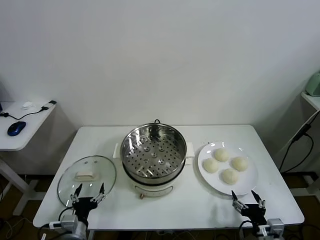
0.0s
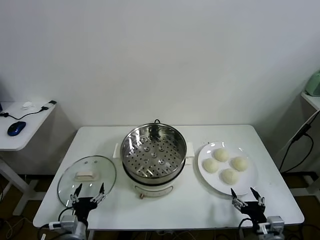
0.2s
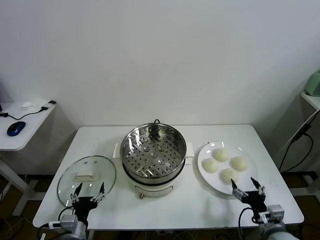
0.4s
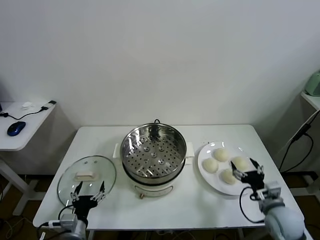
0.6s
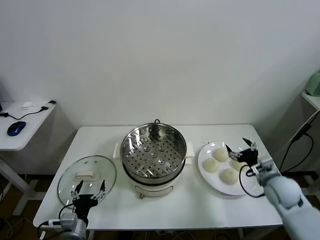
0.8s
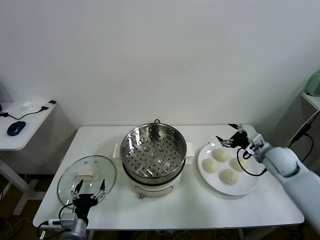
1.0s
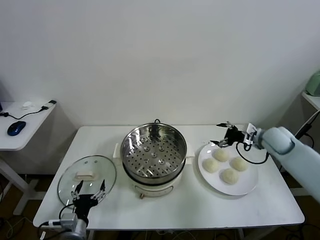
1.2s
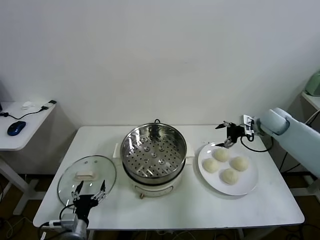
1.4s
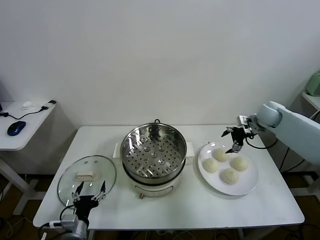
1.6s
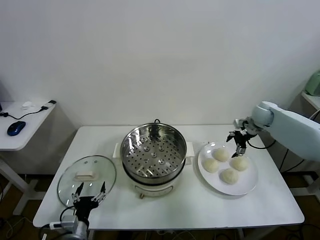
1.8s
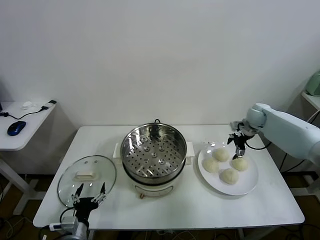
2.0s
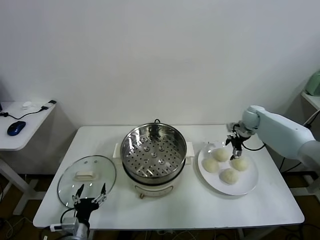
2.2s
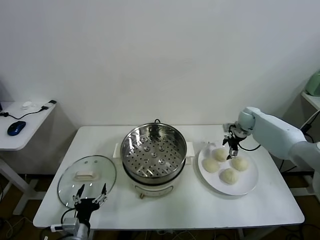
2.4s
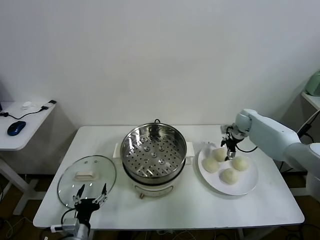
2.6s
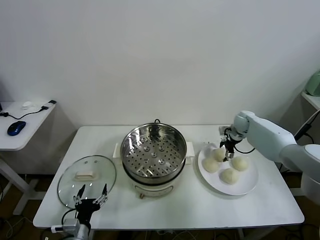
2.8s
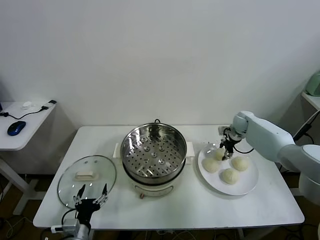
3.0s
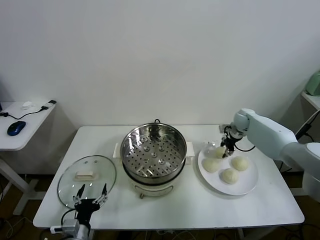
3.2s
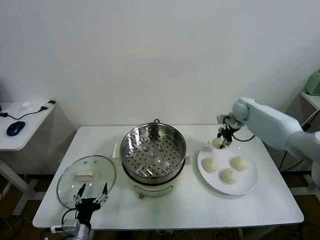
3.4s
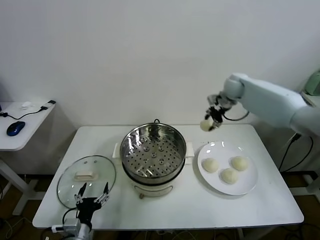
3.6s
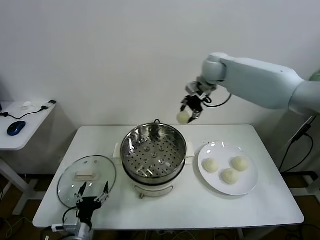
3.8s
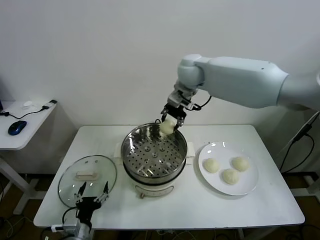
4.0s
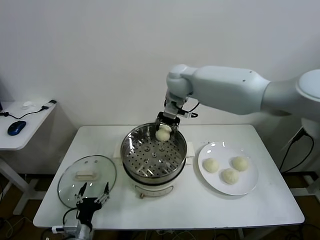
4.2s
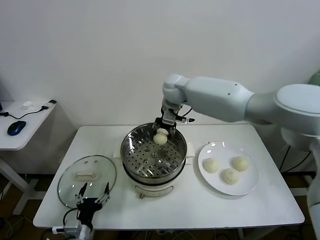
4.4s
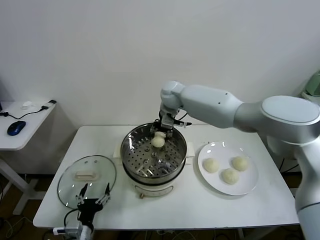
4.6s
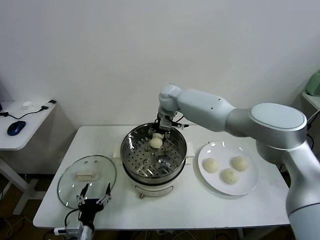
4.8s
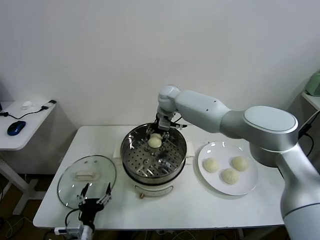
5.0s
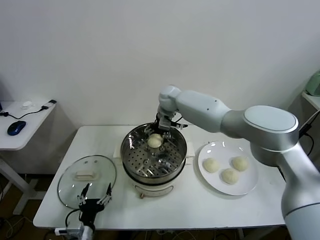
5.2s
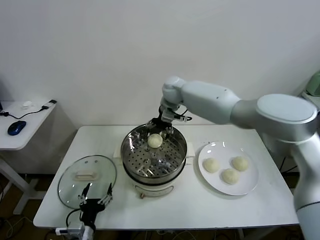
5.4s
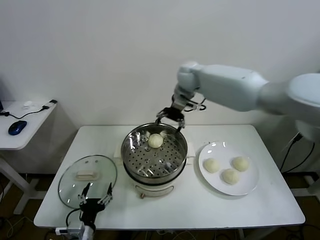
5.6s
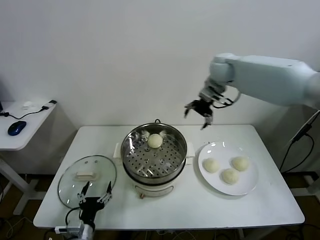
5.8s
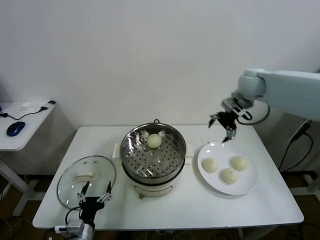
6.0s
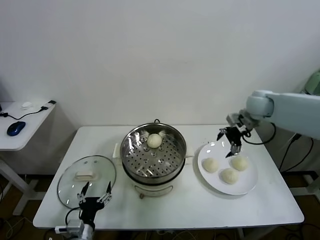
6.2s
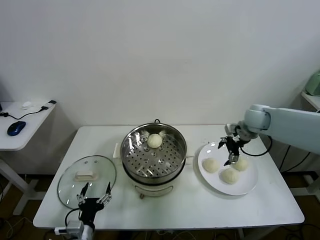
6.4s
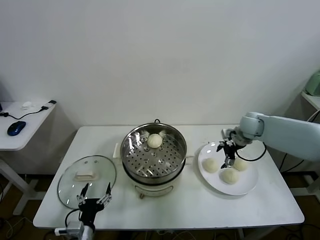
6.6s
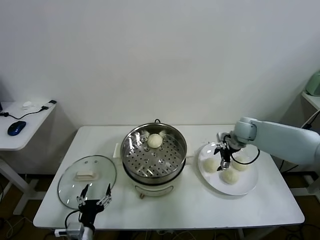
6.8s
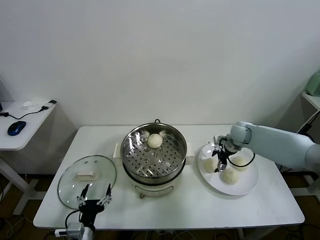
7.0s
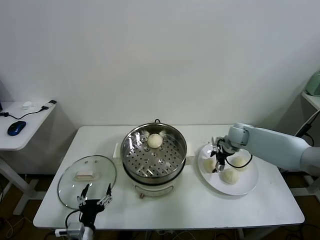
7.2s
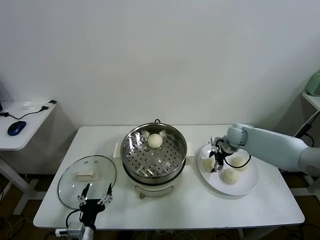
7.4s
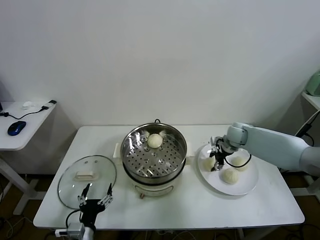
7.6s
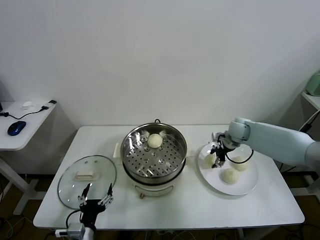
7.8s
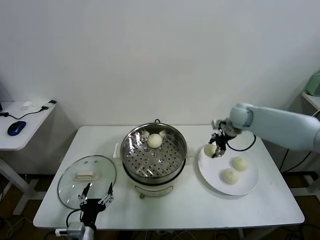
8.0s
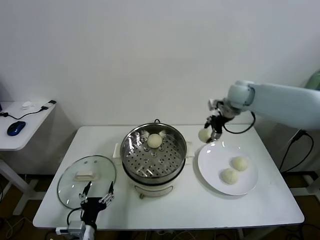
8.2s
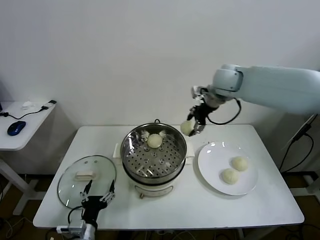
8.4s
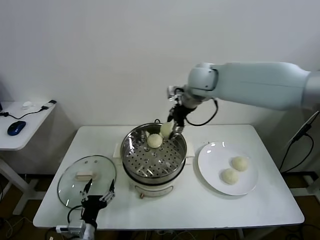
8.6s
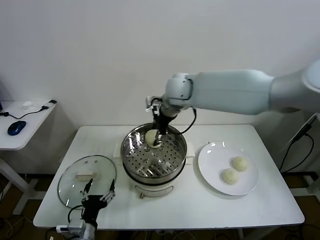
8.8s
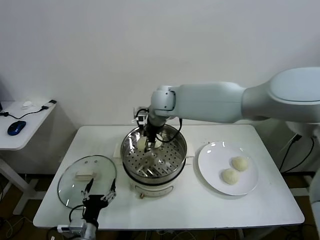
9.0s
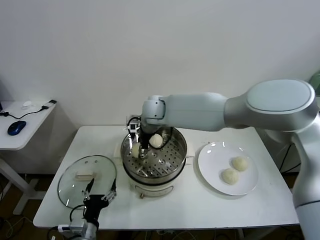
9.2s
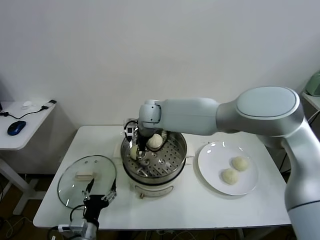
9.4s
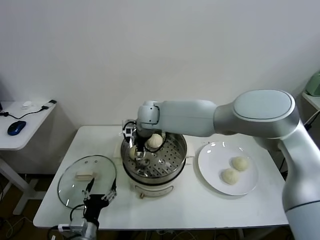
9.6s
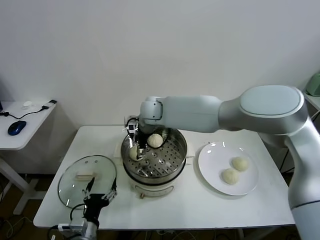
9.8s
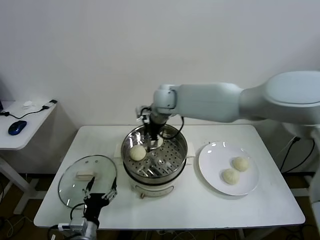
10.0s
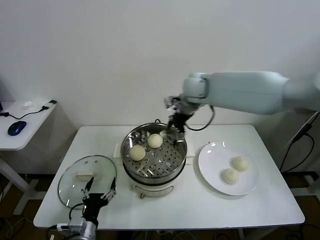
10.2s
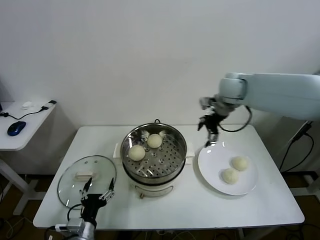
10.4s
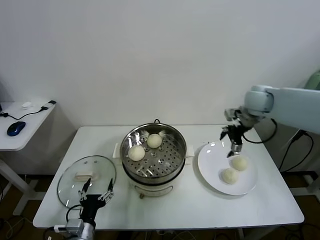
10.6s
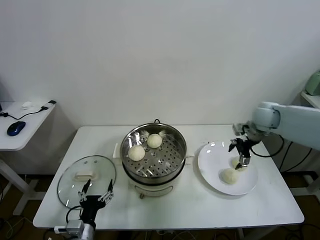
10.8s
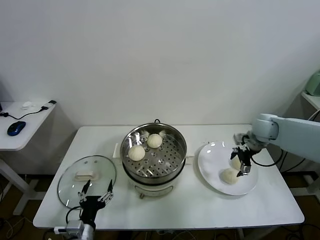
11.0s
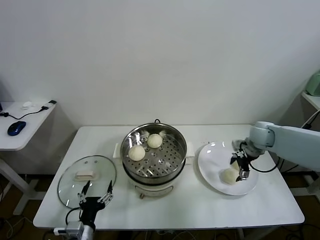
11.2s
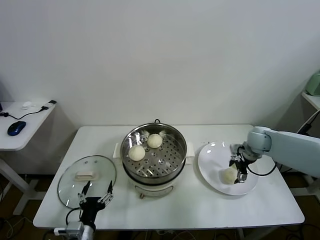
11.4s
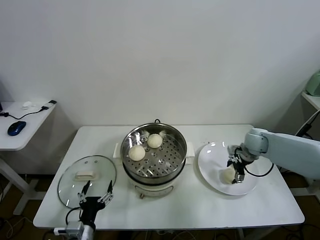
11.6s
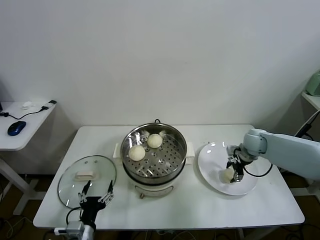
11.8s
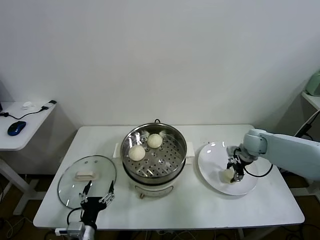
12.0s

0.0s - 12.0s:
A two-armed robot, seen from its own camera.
Task of the whole recording: take steamed baozi put them in steamer.
Step, 0.0s - 3.0s: Grasp the baozi in the plate with right gripper.
Step, 3.2s - 5.2s: Place the baozi on the steamer with right gripper.
Step, 5.4s - 7.4s: Grasp the baozi in the plate with right gripper.
Step, 7.6s - 9.8s: Place the baozi on the steamer with right gripper.
Step, 10.0s - 12.0s: Grasp the baozi in the plate with right gripper.
1.6s - 3.0s: The right gripper is displaced downward by approximately 10 cm, and closes its fingers.
3.0s - 4.4s: The right gripper goes roughly 35 cm to the left and upward.
4.4s - 6.0s: The right gripper heads to the right, covering roughly 30 cm, and opens.
6.0s - 7.6s: The right gripper heads downward, covering some 20 cm, and closes.
7.6s - 9.0s: The right gripper heads to the left and upward, covering roughly 35 cm.
9.0s - 10.4s: The right gripper travels to the right by about 25 cm, and opens its fingers.
10.4s - 12.0s: The right gripper travels downward and to the right by about 20 cm, and closes.

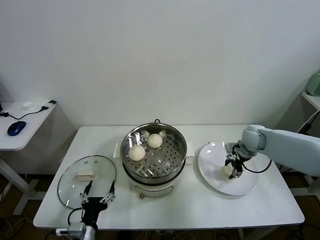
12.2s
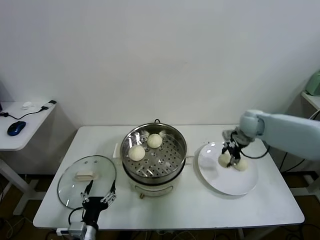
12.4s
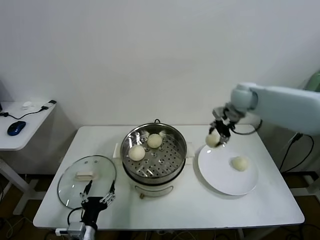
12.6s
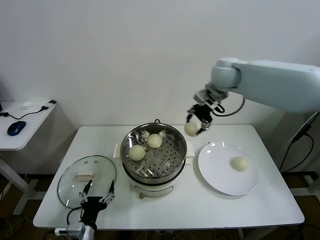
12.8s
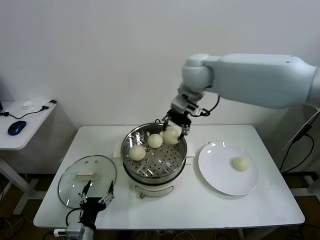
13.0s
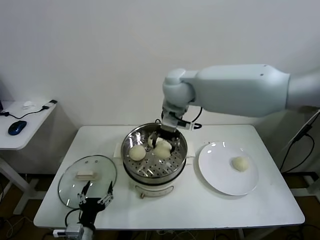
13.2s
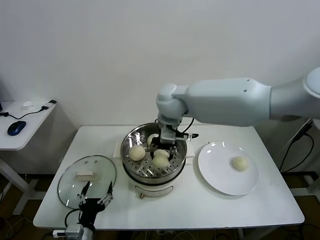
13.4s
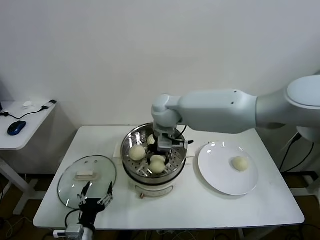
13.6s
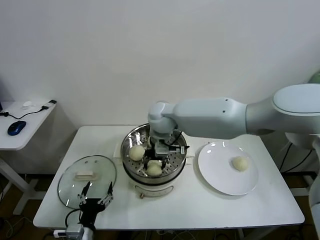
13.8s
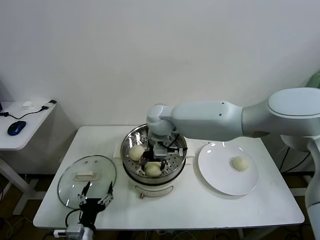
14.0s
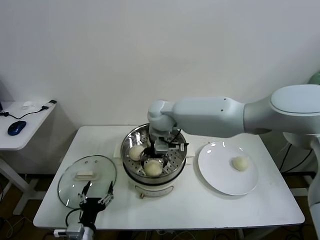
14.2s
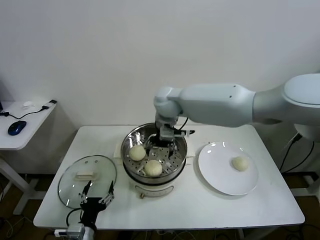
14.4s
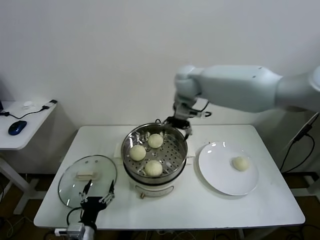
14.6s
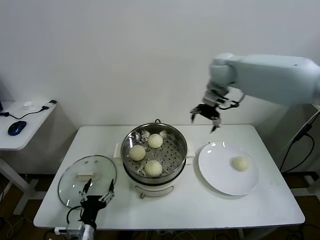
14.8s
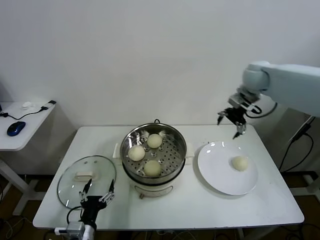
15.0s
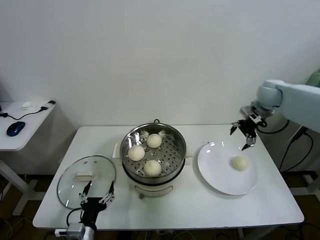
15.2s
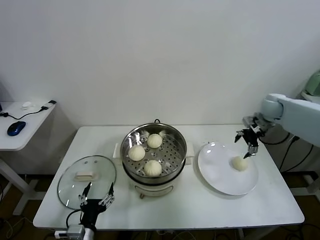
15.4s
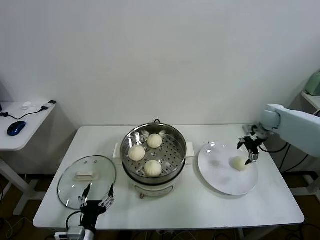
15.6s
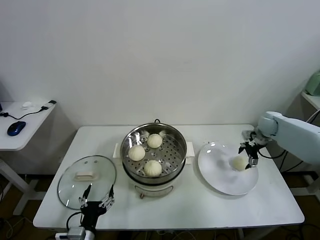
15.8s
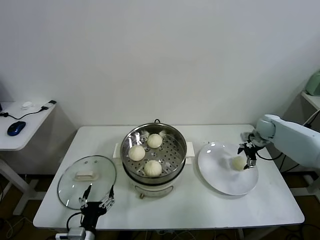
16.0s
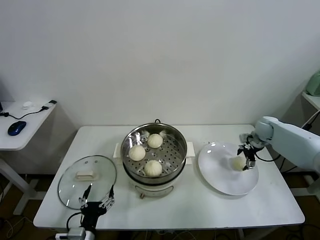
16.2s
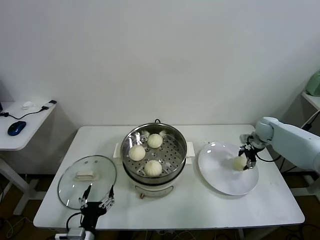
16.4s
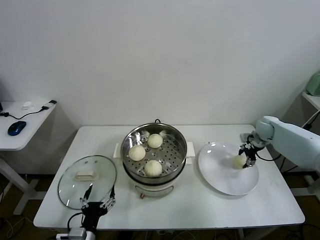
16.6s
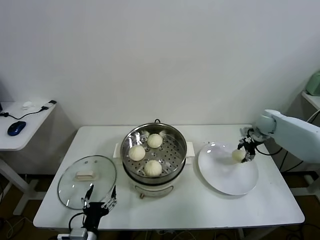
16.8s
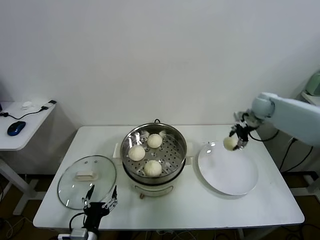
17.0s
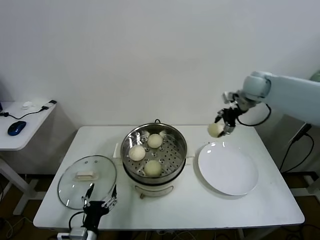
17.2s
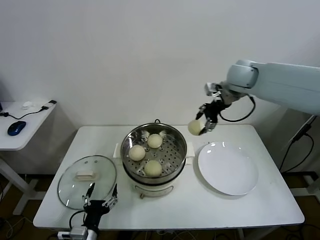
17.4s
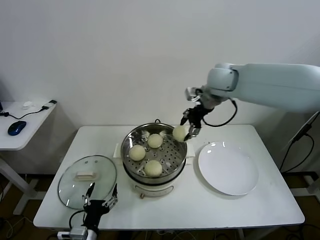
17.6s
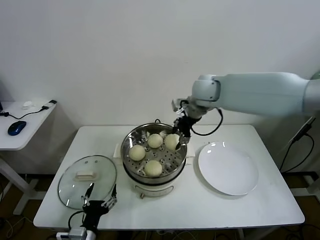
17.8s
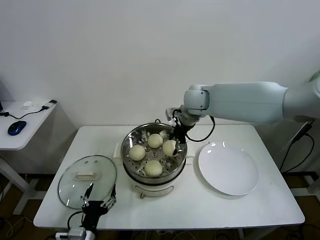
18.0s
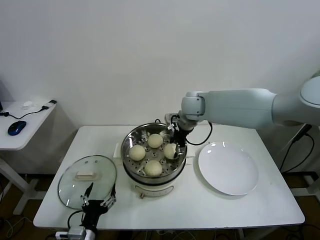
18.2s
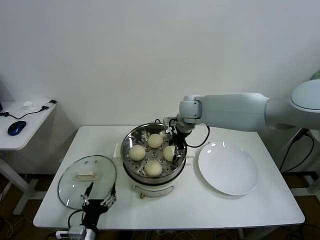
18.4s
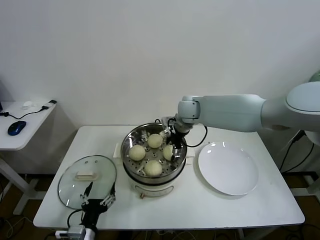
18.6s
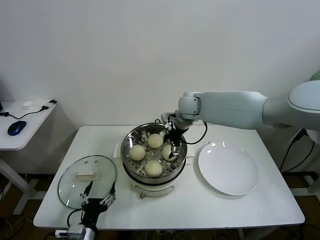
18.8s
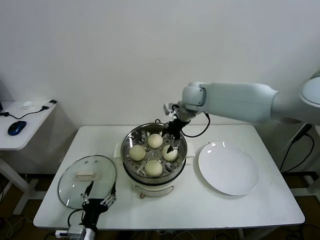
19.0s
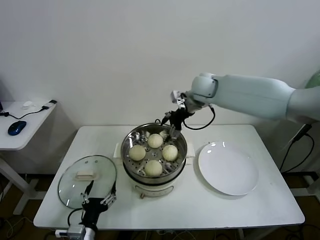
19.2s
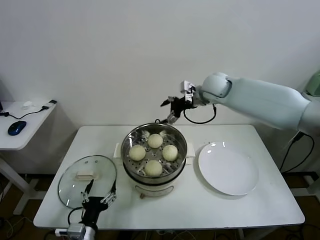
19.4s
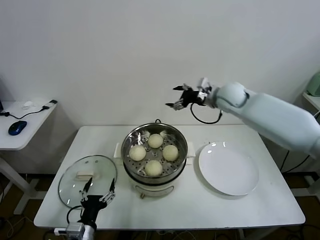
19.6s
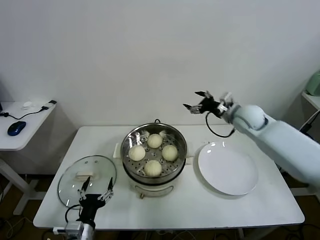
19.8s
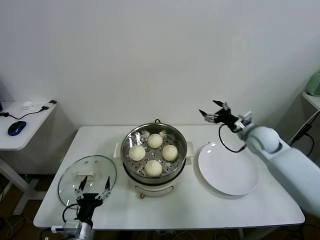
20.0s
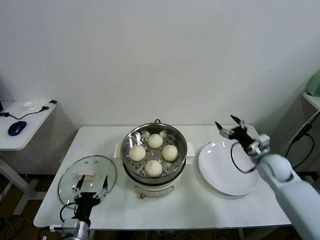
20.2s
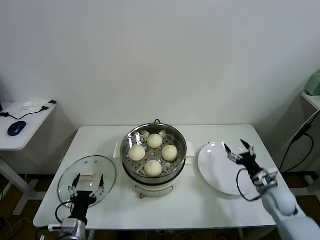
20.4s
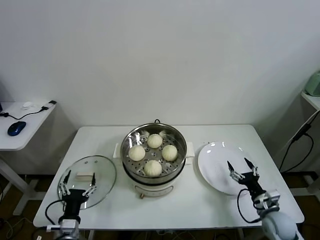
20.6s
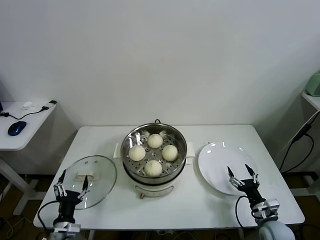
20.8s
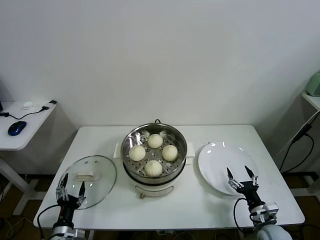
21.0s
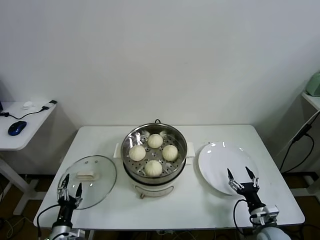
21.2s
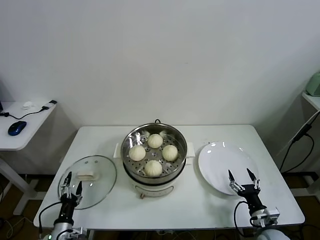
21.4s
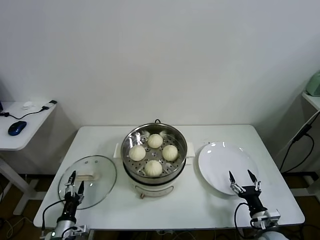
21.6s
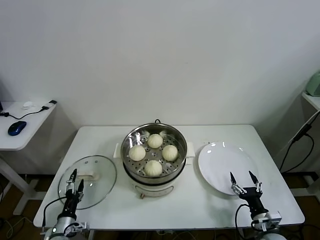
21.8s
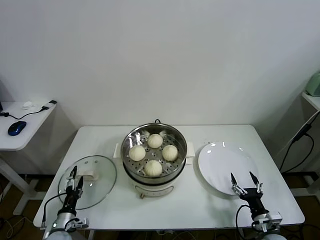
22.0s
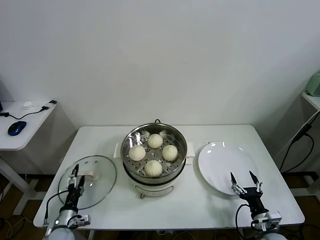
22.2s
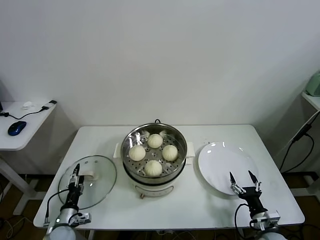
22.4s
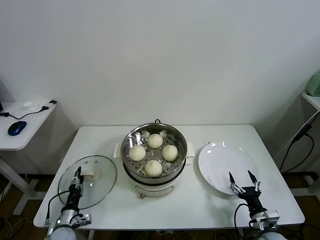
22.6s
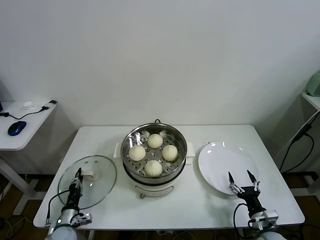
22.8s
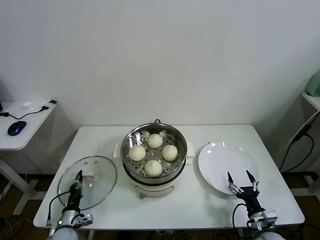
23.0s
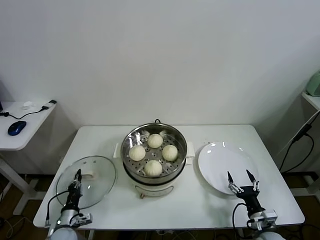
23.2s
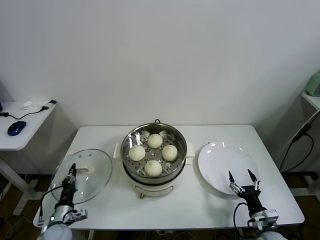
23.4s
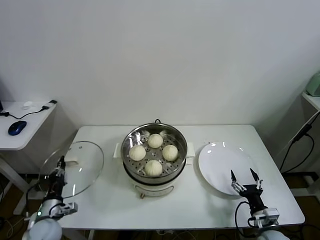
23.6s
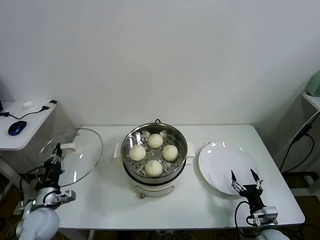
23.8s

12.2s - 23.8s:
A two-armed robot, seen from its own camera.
Task of the whole recording: take steamed baozi put them in steamer.
Step, 12.2s - 14.2s: Place the baozi on the steamer with right gripper.
Step, 14.4s - 16.4s: Grasp the baozi in the plate with right gripper.
Step, 16.6s - 18.8s: Place the baozi on the steamer with right gripper.
Step, 19.0s - 22.8s: Grasp the pot lid with left gripper.
12.2s - 13.6s: The right gripper heads to the left and upward, covering roughly 35 cm.
13.6s - 15.0s: The right gripper moves to the right, about 30 cm, and opens up.
15.0s - 16.6s: The right gripper goes approximately 25 cm downward and to the right, and closes up.
16.6s - 18.0s: The right gripper moves to the left and upward, some 35 cm.
18.0s - 19.4s: The right gripper travels to the right by some 5 cm, and opens.
19.4s - 21.0s: The left gripper heads to the left and downward, covering some 10 cm. The right gripper travels downward, backward and to the right by roughly 50 cm.
21.0s - 22.4s: The left gripper heads forward, covering about 5 cm.
22.4s - 23.8s: The left gripper is displaced upward by approximately 15 cm, and closes up.
